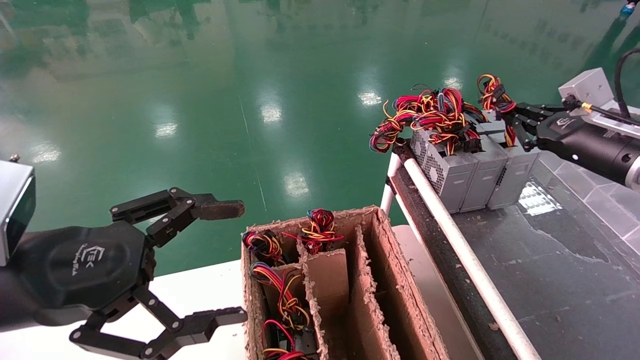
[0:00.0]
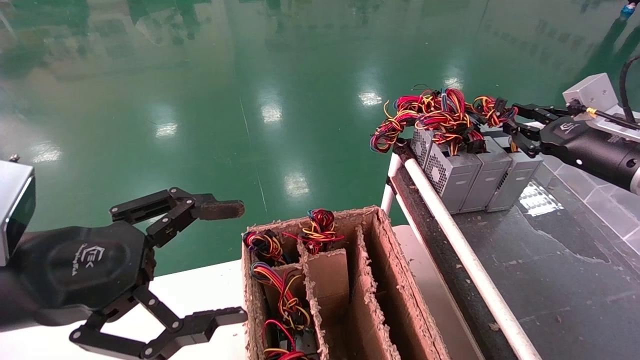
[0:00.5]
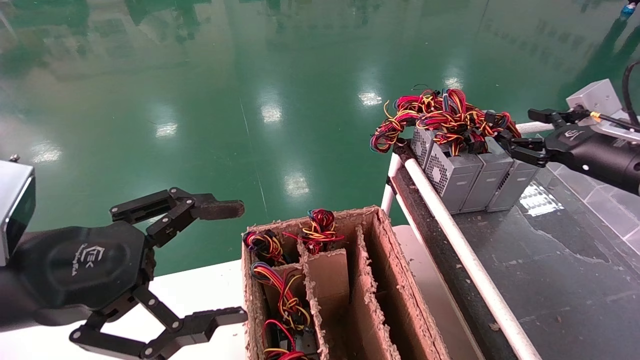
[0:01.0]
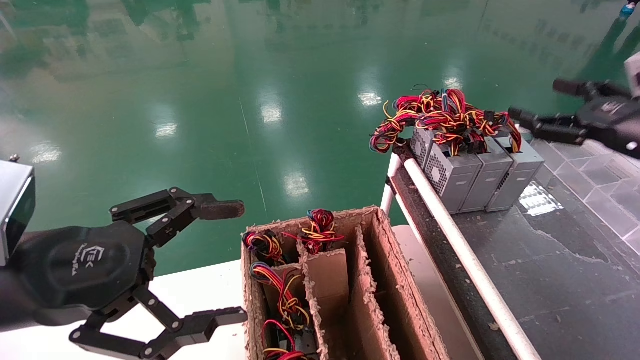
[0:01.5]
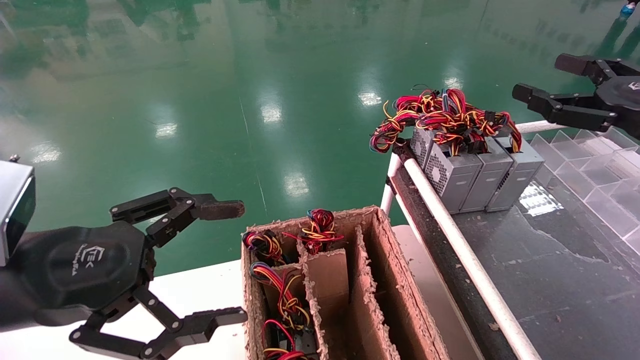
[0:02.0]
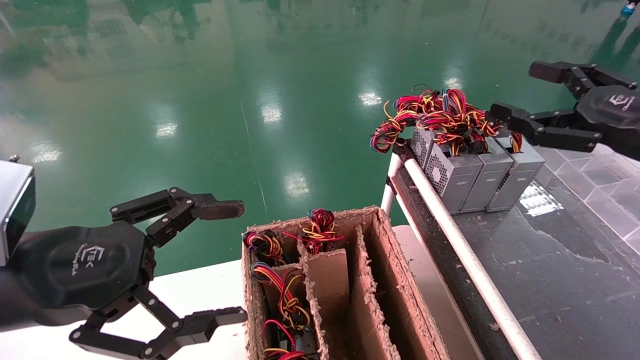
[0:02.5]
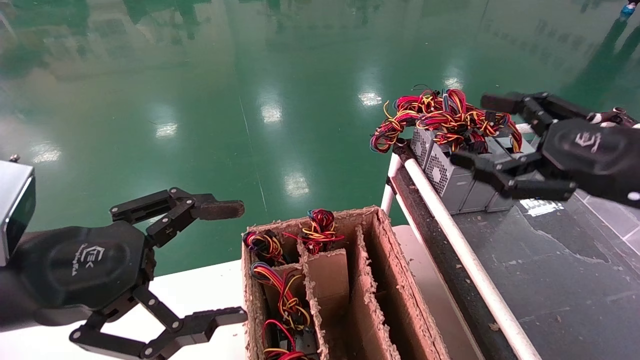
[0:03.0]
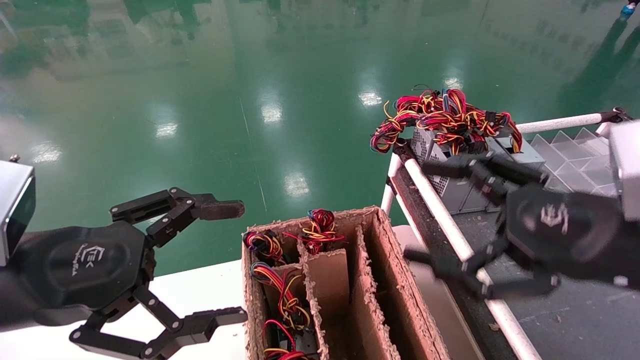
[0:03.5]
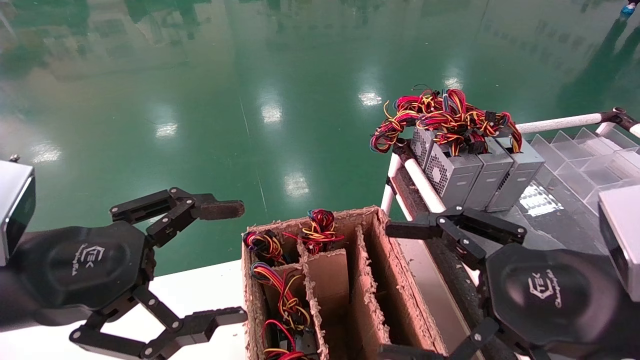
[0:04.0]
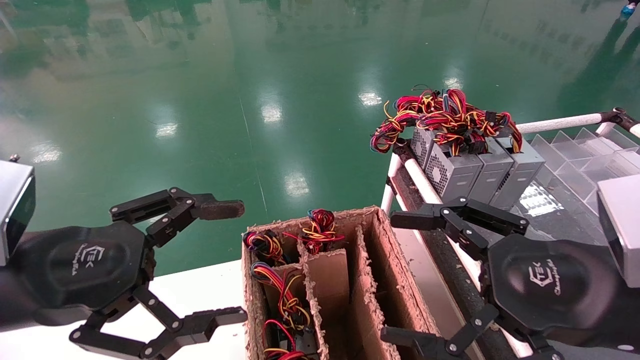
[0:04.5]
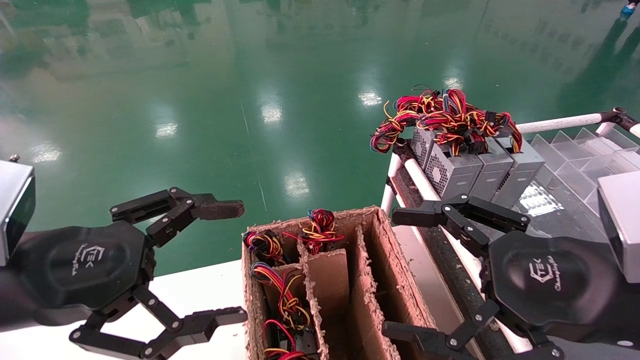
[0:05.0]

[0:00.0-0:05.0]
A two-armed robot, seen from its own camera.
0:00.0 to 0:02.5: The right gripper goes approximately 10 cm backward, and opens up.
0:02.5 to 0:05.0: The right gripper travels to the left, backward and downward by approximately 20 cm.
